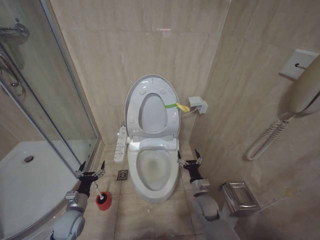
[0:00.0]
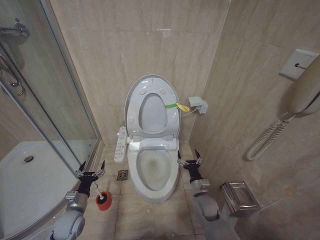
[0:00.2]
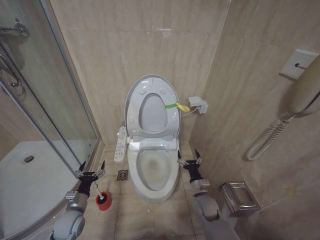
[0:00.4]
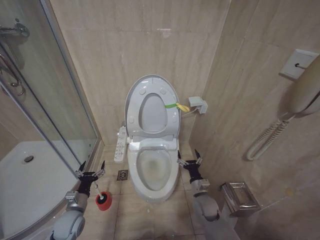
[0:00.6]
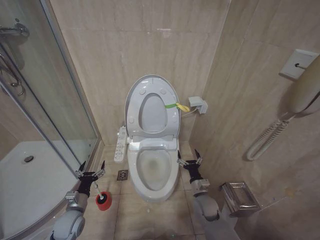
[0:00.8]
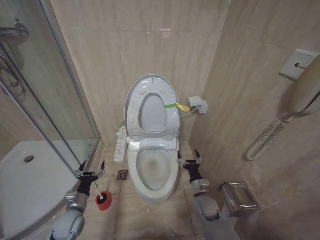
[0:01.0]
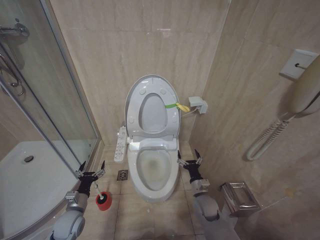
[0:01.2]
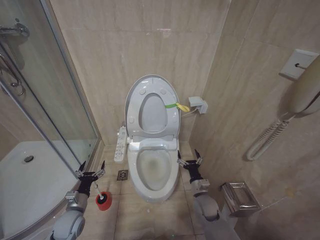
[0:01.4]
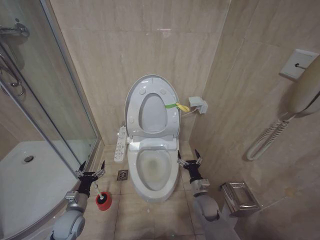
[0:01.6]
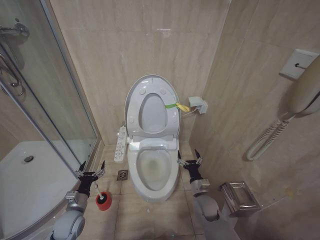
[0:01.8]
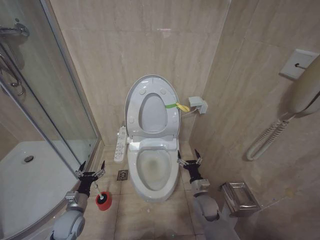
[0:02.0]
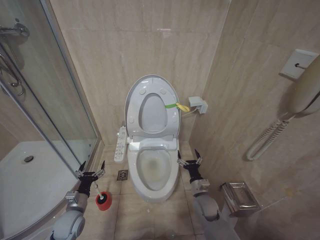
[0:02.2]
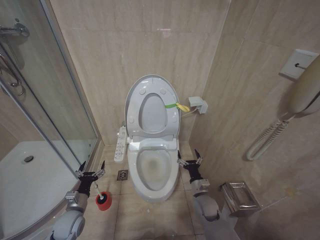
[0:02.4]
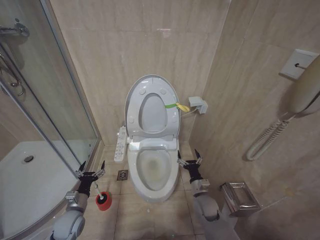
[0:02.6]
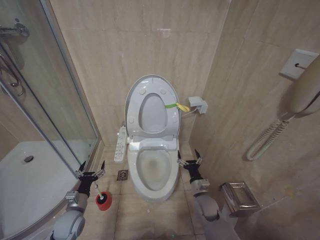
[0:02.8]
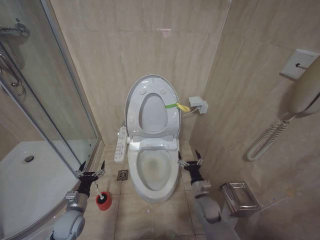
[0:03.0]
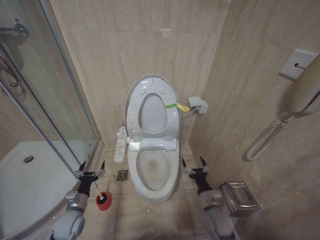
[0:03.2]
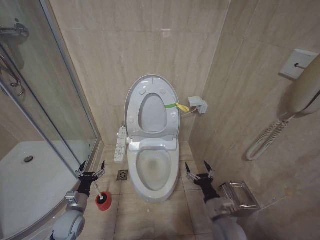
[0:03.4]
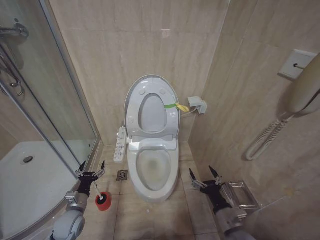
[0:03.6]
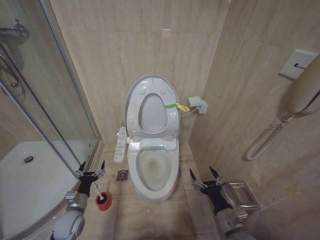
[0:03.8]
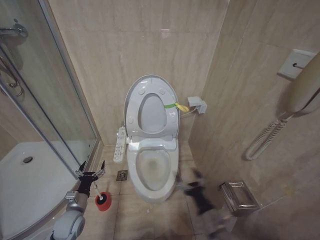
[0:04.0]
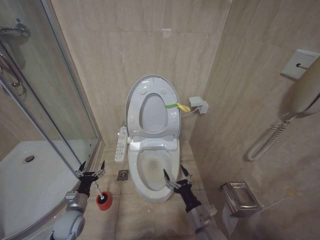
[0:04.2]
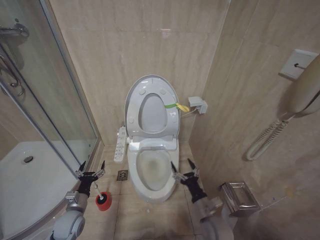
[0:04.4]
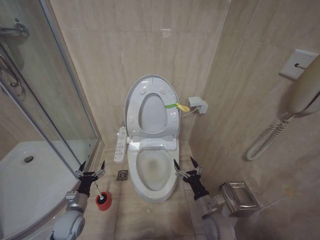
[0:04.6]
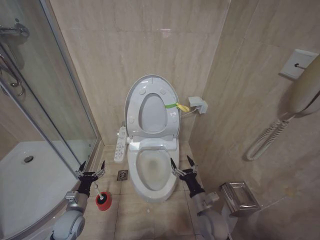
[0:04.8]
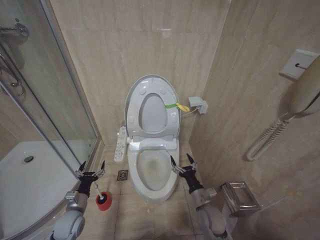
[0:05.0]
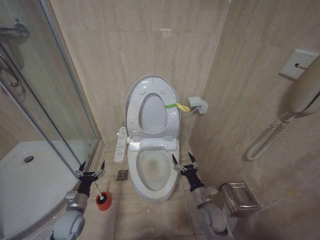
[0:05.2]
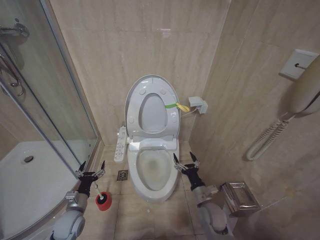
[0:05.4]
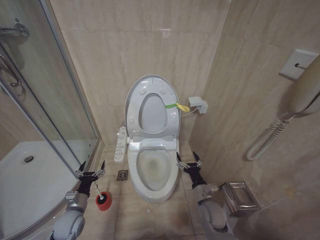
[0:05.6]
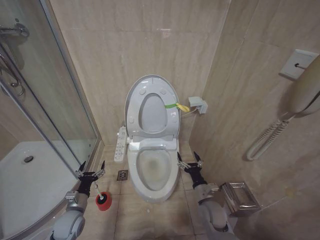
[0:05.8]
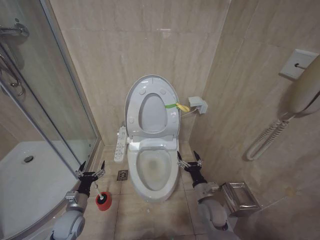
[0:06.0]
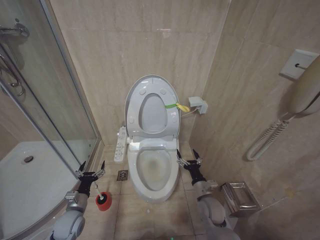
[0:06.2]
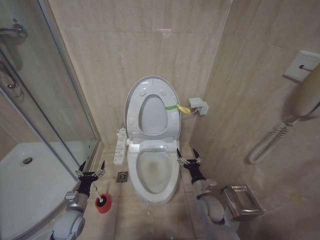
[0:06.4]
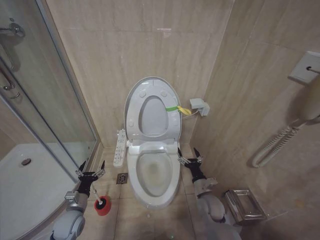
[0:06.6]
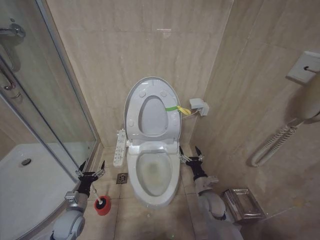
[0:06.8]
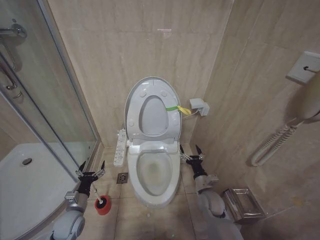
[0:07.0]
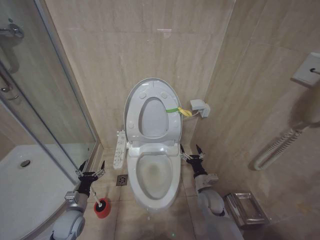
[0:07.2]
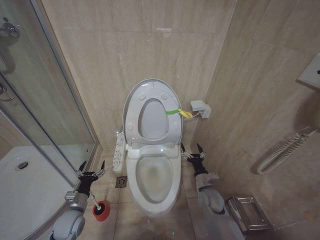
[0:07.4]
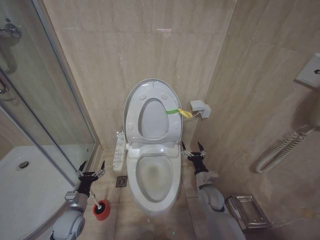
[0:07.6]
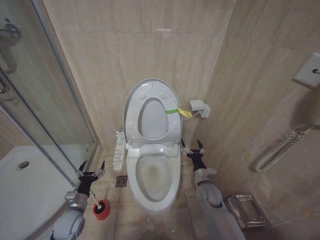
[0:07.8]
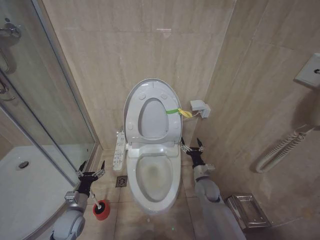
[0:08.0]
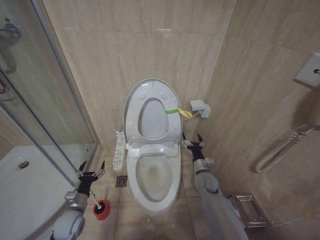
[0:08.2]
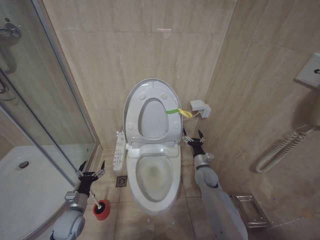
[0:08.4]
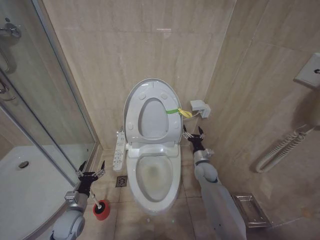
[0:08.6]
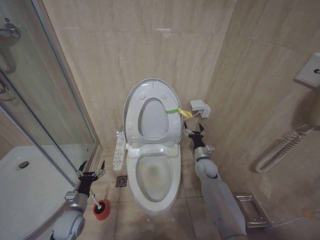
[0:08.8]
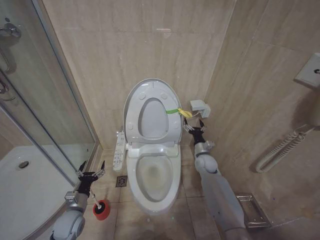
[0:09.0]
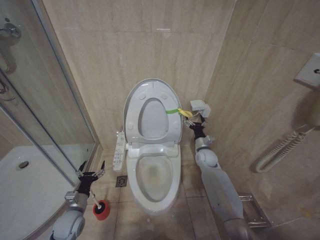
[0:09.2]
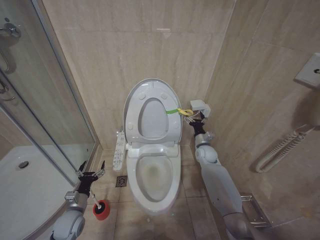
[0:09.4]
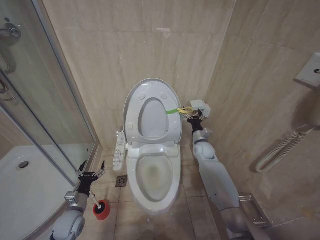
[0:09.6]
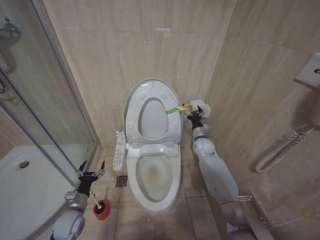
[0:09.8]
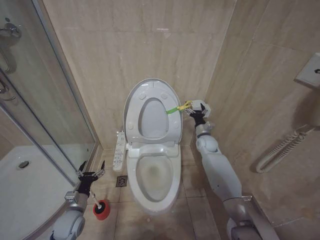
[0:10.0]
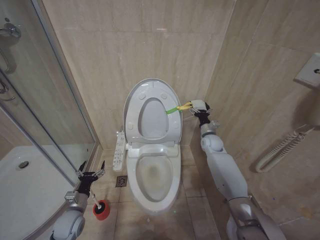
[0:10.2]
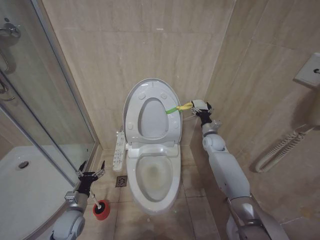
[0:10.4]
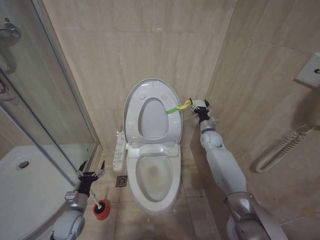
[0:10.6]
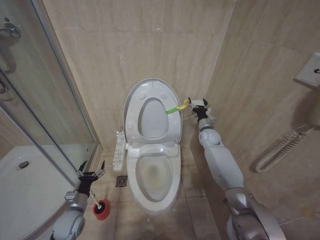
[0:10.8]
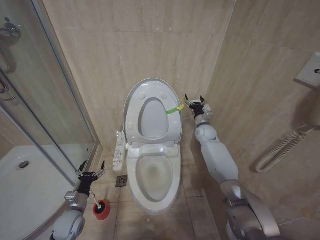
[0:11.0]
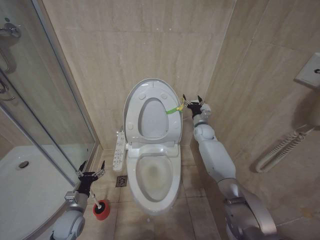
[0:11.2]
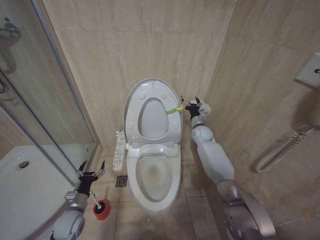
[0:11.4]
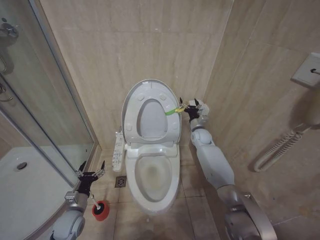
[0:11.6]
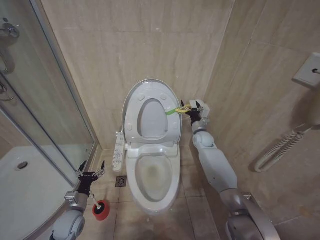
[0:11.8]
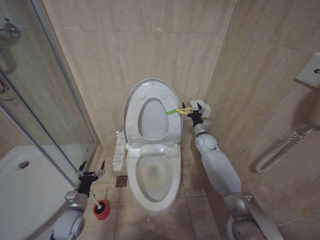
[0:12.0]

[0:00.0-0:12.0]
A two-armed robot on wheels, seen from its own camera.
Task of the whole recording: Open the toilet lid, clean the toilet bowl with a toilet brush, close the toilet lid, and flush.
0:00.0 to 0:03.0: Both grippers stay put.
0:03.0 to 0:04.4: The right gripper is displaced backward by some 10 cm.
0:04.4 to 0:06.0: The right gripper moves forward, about 5 cm.
0:06.0 to 0:07.6: The right gripper heads forward, covering about 5 cm.
0:07.6 to 0:09.0: The right gripper shifts approximately 15 cm forward and upward.
0:09.0 to 0:10.4: The right gripper shifts approximately 10 cm upward and forward.

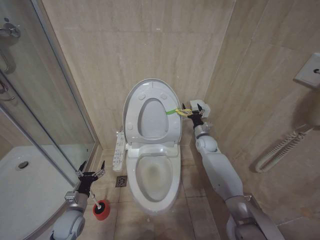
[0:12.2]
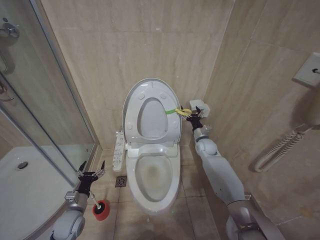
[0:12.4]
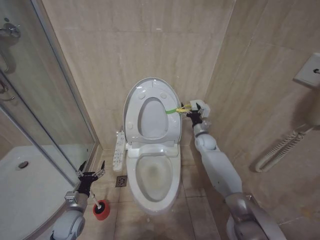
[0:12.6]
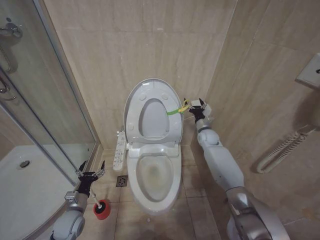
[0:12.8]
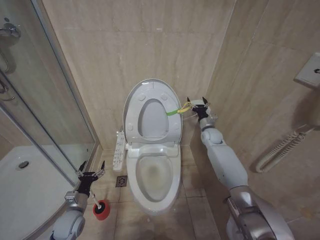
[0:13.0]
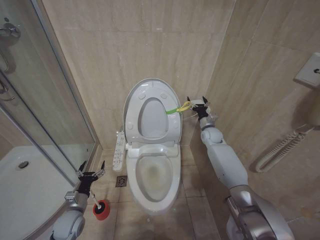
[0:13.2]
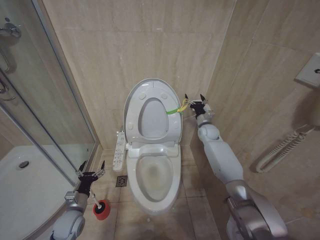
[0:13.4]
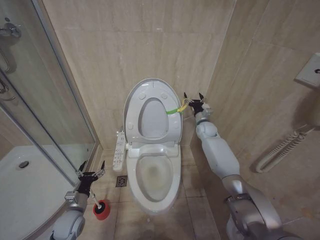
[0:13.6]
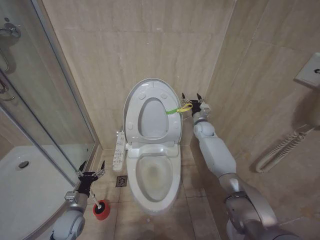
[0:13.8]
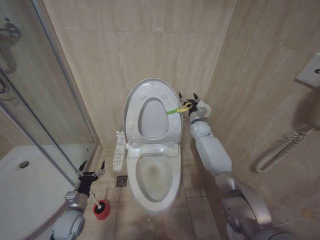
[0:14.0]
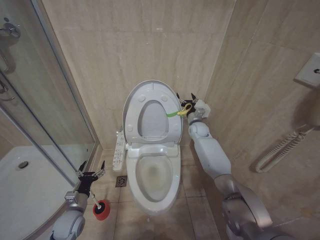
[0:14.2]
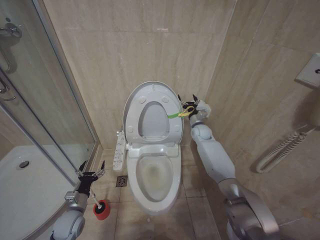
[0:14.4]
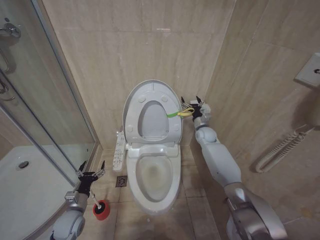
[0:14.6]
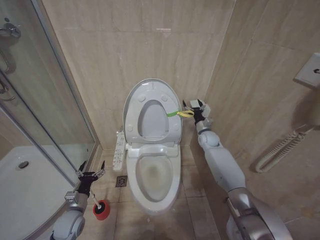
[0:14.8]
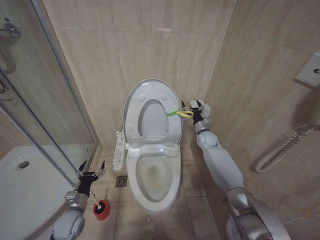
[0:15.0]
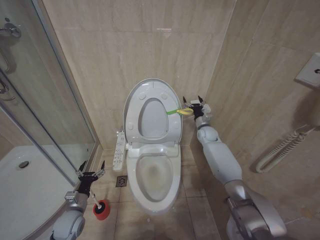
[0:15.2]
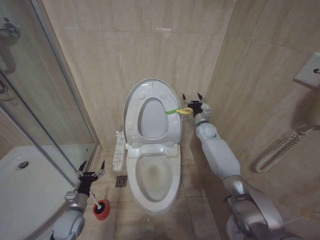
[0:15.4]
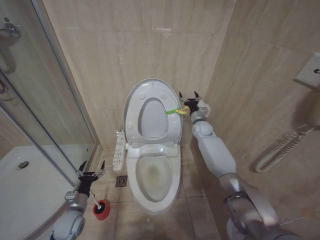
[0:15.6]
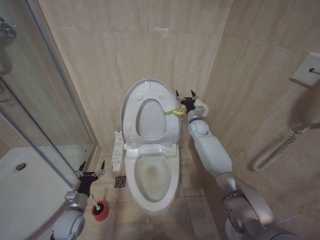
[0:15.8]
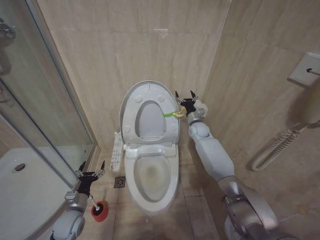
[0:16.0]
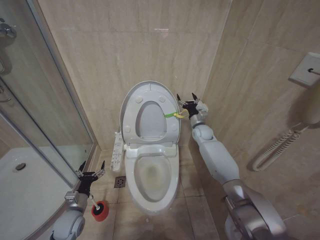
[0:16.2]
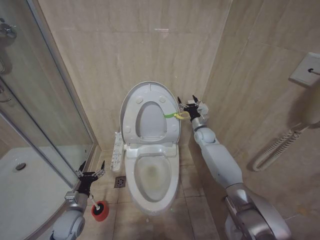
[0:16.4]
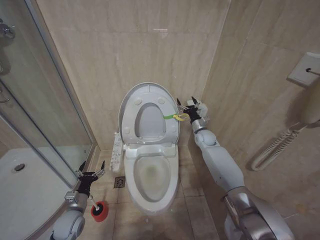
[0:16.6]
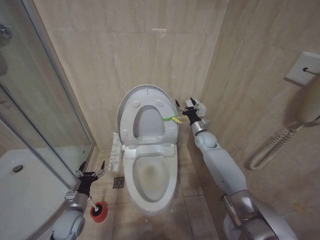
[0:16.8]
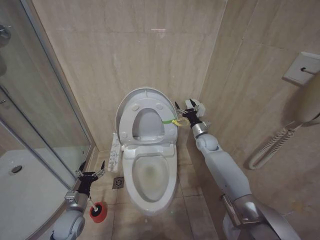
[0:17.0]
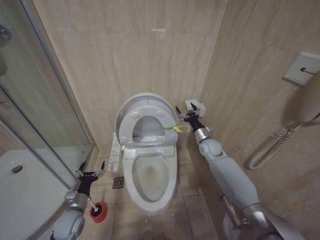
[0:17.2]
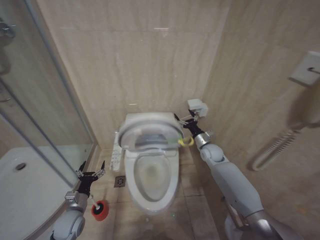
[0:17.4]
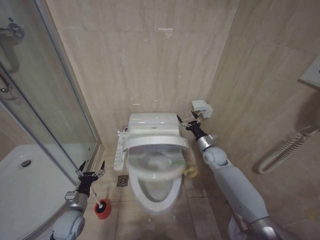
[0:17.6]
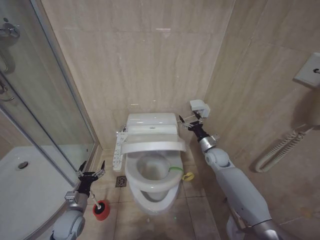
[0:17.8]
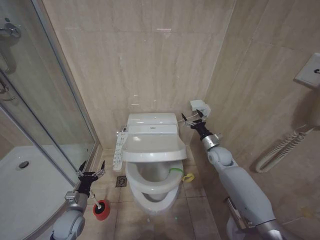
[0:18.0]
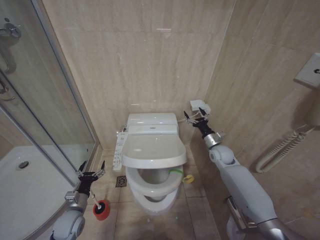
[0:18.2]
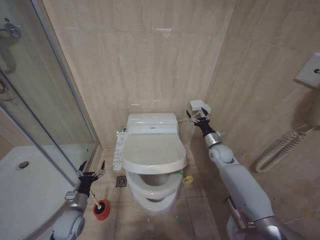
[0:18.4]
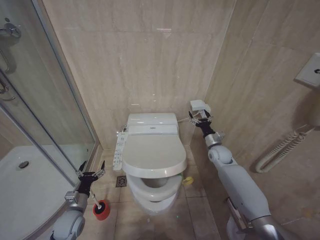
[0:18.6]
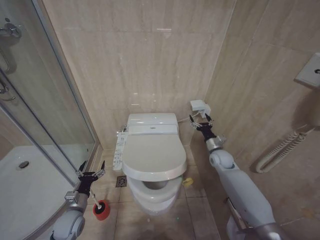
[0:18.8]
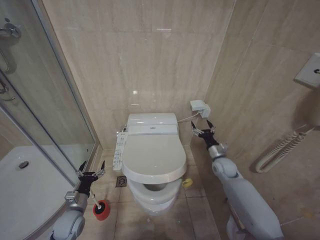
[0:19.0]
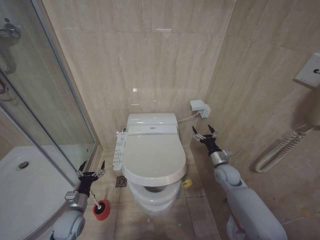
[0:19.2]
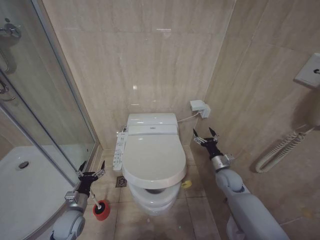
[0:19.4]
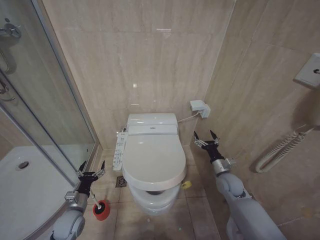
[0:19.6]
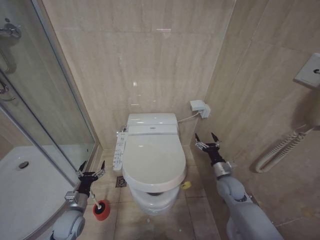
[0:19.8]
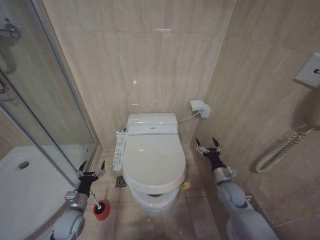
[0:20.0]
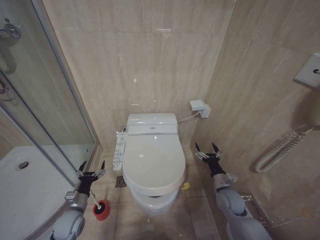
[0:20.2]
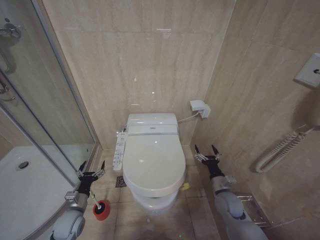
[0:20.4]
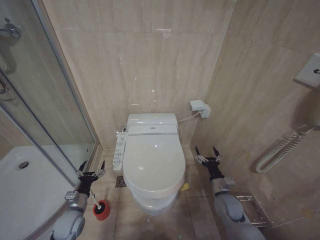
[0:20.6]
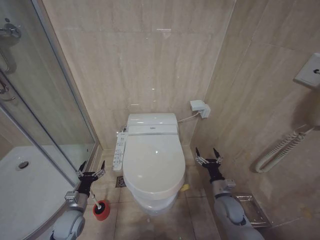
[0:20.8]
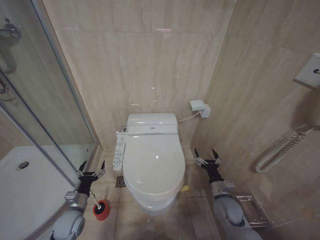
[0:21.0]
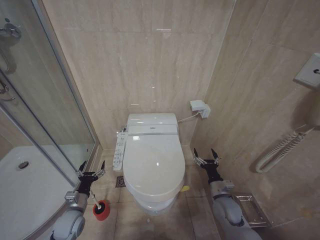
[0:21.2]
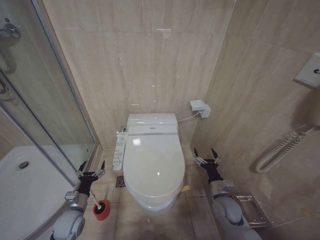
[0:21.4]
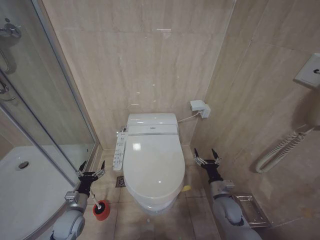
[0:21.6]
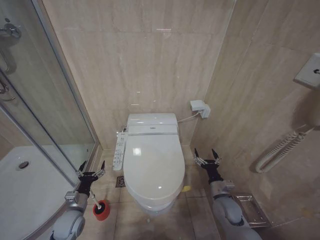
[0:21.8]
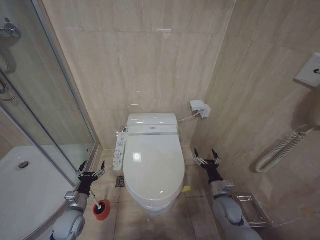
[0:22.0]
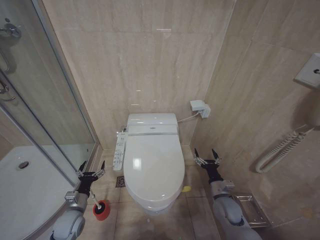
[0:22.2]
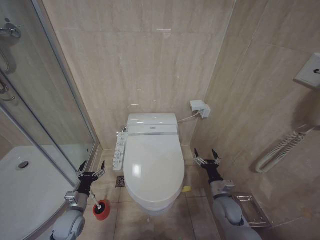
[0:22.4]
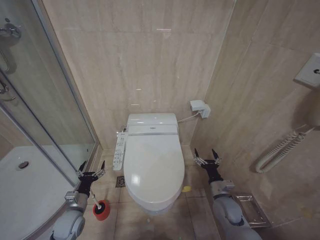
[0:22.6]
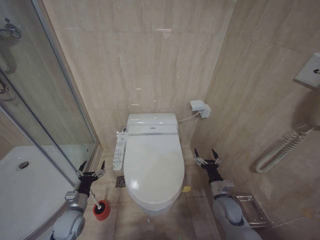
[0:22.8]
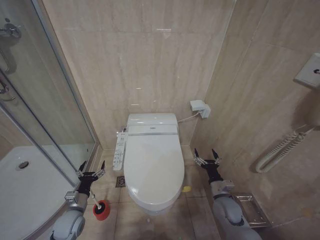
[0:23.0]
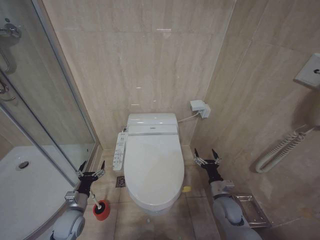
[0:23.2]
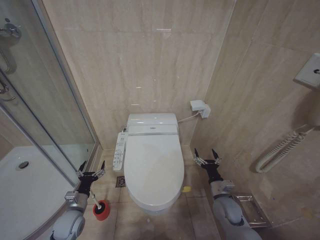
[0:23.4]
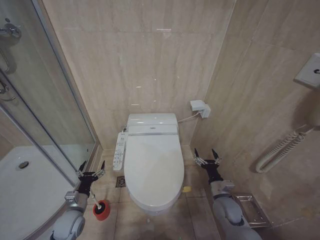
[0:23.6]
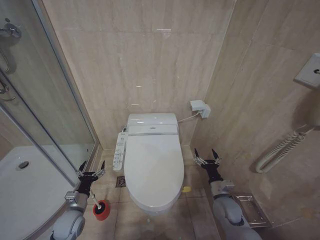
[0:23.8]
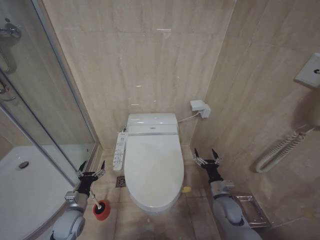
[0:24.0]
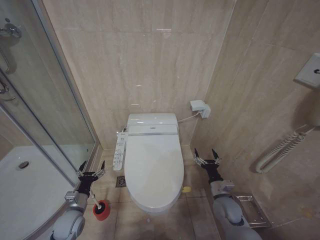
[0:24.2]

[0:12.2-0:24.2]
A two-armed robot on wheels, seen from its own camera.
Task of the whole recording: Open the toilet lid, clean the toilet bowl with a toilet brush, close the toilet lid, and flush.
0:12.2 to 0:13.8: The right gripper heads forward, covering about 5 cm.
0:13.8 to 0:15.2: The grippers stay close to where they were, moving slightly.
0:16.6 to 0:18.2: The right gripper moves backward, roughly 10 cm.
0:18.2 to 0:19.8: The right gripper travels backward and downward by about 15 cm.
0:19.8 to 0:21.2: The right gripper moves backward, about 5 cm.
0:21.2 to 0:24.2: Neither gripper changes place.
